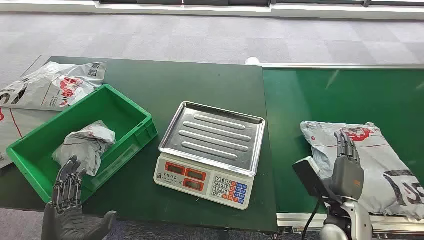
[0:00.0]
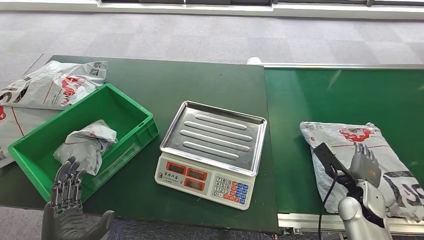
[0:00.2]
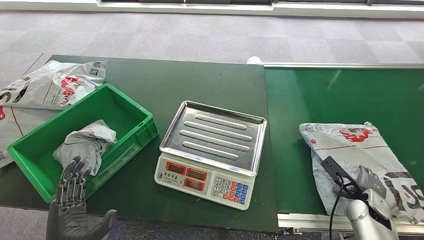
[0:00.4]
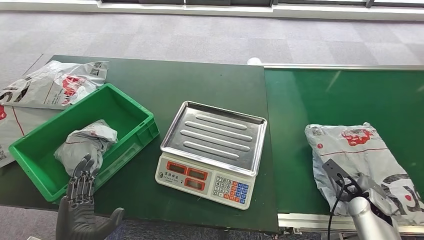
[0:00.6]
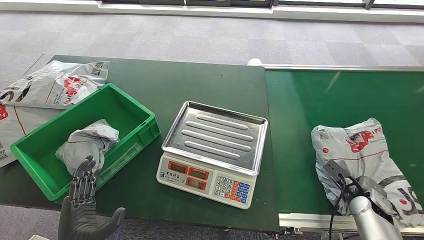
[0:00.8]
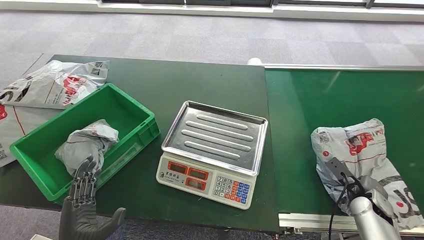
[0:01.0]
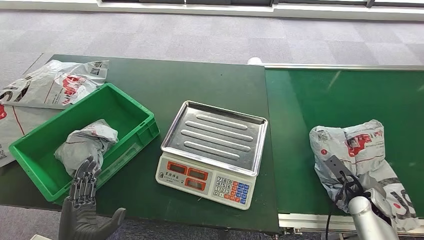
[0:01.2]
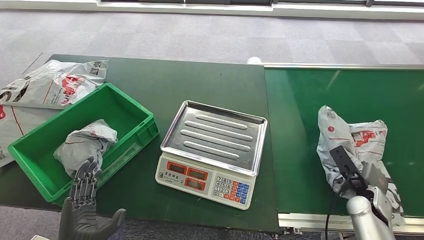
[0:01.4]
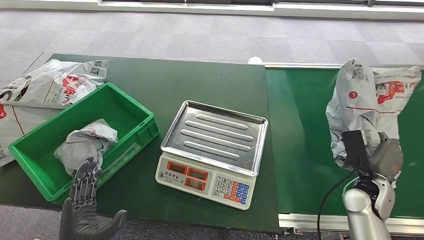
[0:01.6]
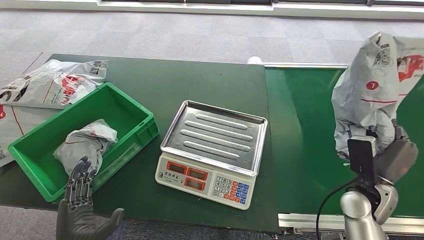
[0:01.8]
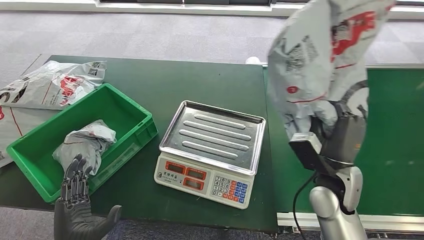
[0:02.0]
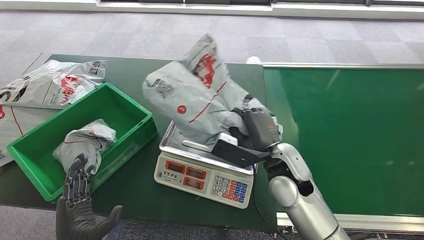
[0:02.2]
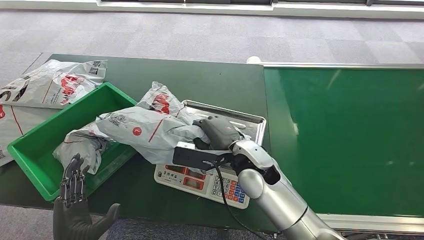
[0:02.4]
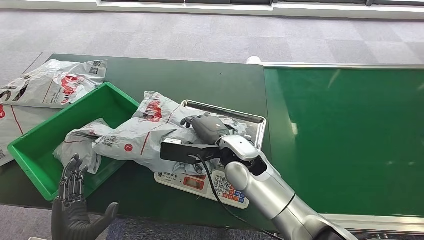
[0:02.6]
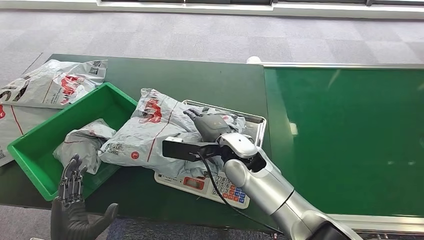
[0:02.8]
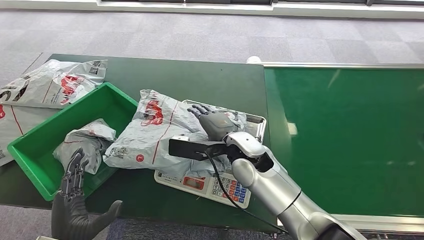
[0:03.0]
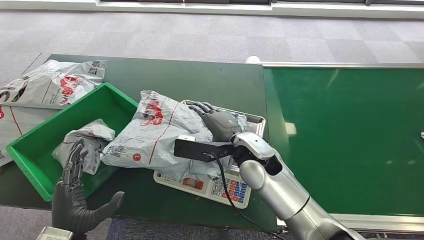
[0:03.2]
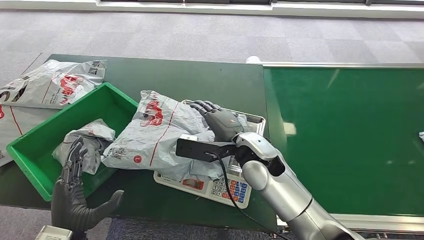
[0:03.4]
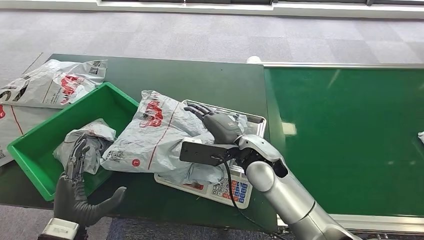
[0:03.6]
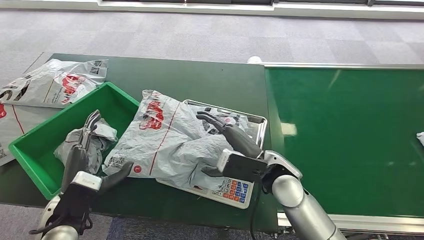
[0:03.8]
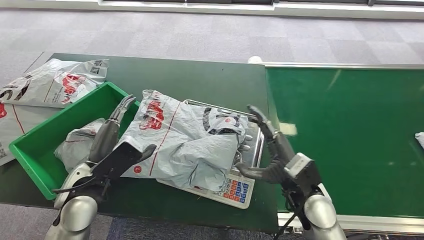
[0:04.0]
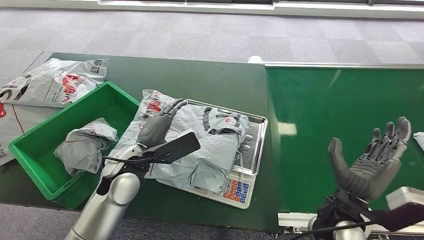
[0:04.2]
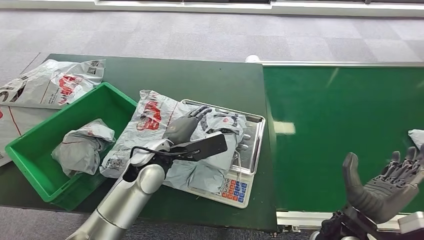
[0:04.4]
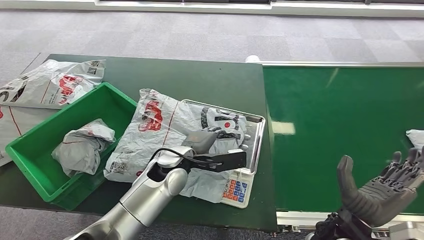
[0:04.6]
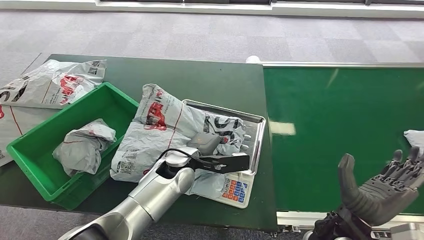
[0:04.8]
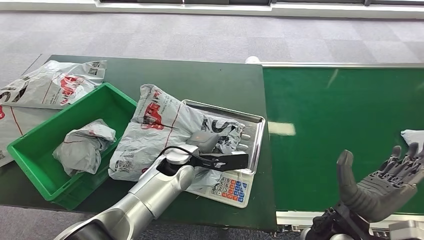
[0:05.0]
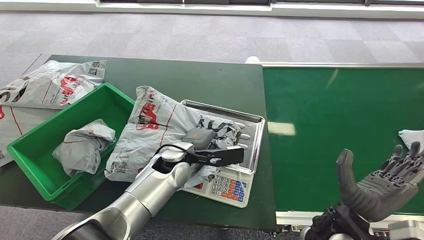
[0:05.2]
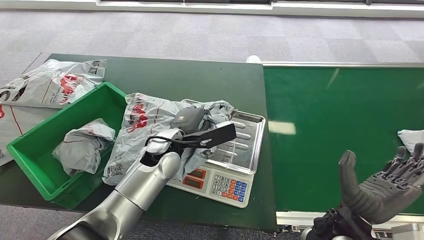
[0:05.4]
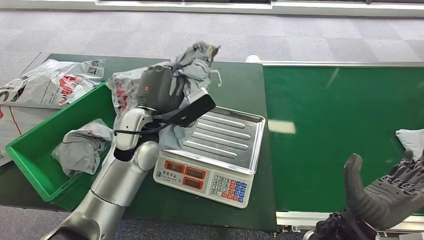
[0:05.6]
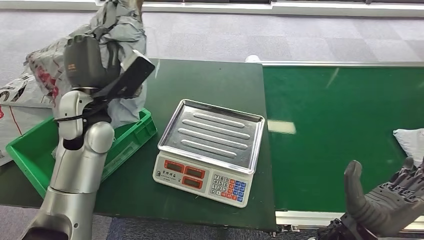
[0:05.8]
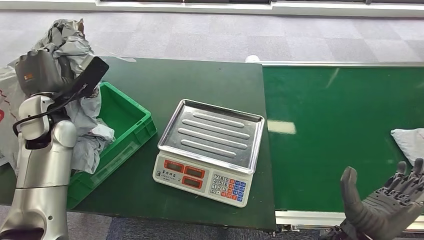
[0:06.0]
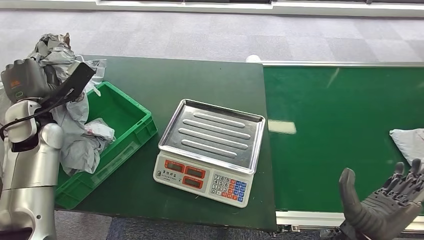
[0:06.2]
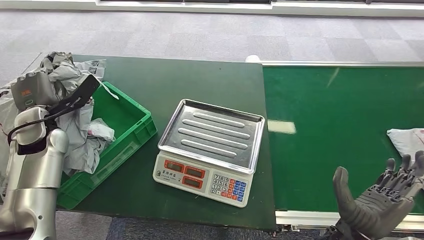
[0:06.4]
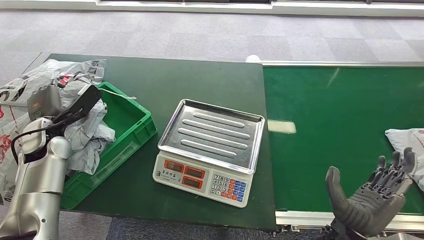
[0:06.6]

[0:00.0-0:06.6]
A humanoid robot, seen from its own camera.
Step, 0:00.0 to 0:01.6: Pick up the package from the conveyor belt.
Step, 0:01.8 to 0:04.2: Place the package onto the inbound machine.
Step, 0:04.6 to 0:06.2: Pick up the package from the inbound machine.
Step, 0:06.4 to 0:06.6: Place the package into the parcel locker.

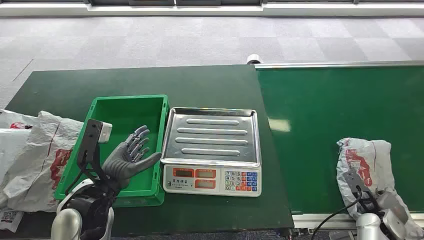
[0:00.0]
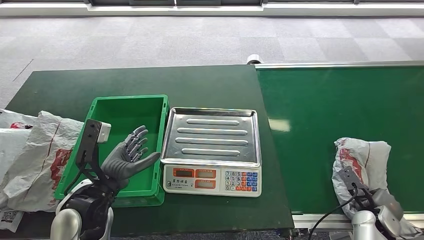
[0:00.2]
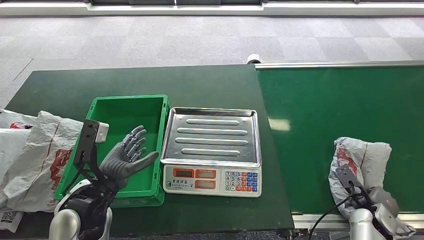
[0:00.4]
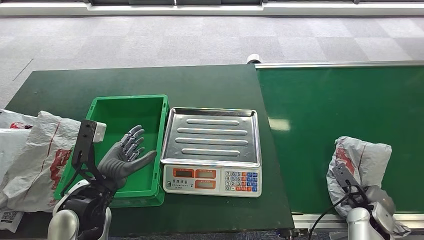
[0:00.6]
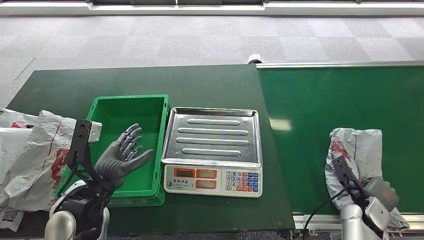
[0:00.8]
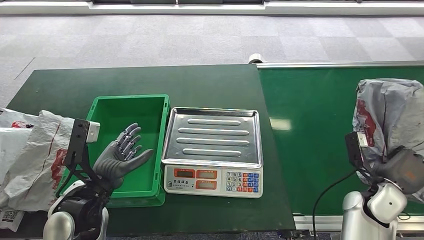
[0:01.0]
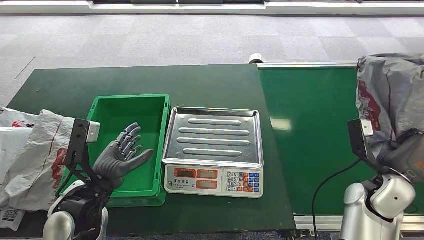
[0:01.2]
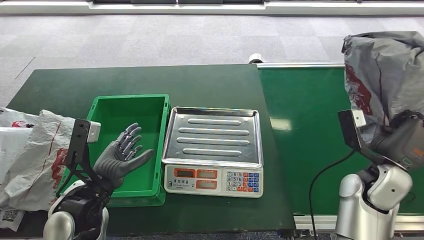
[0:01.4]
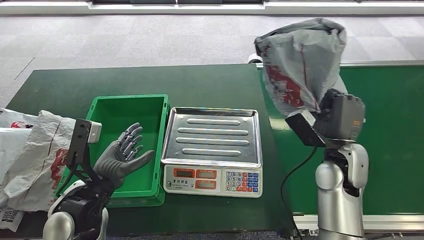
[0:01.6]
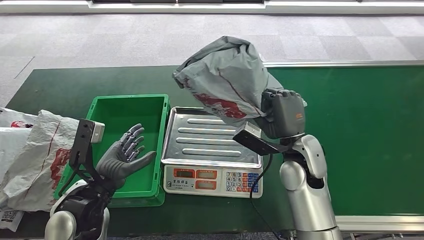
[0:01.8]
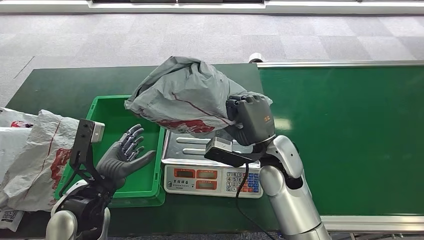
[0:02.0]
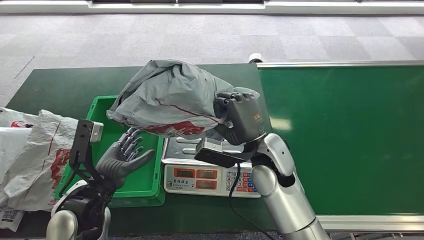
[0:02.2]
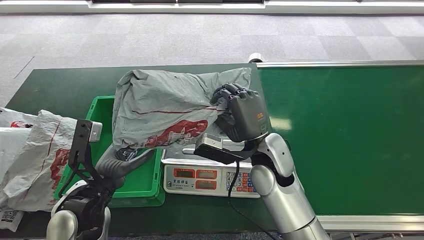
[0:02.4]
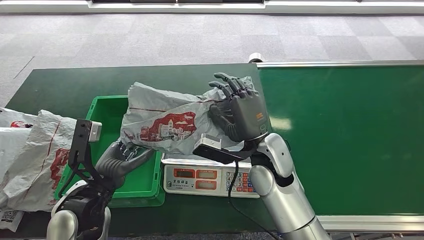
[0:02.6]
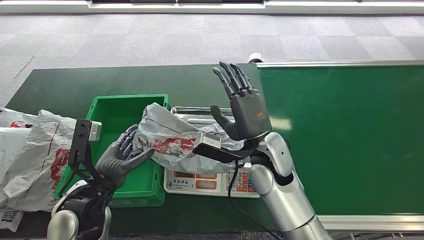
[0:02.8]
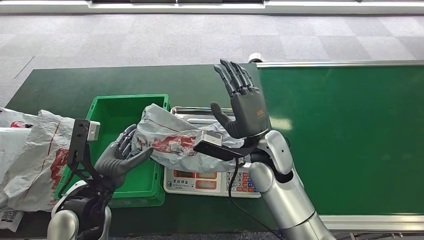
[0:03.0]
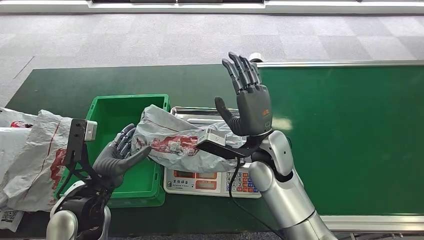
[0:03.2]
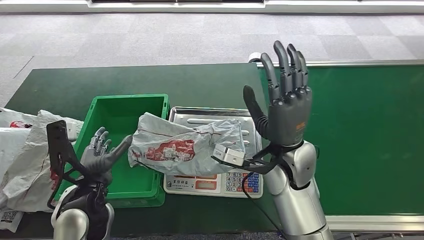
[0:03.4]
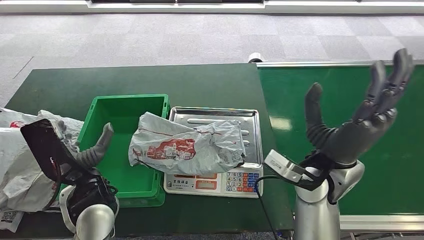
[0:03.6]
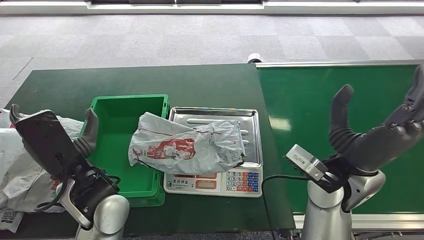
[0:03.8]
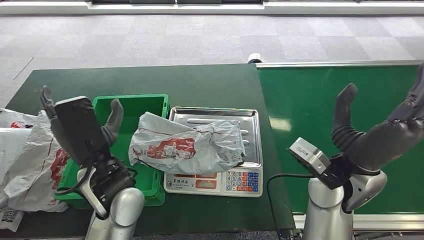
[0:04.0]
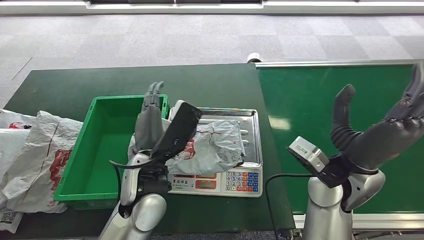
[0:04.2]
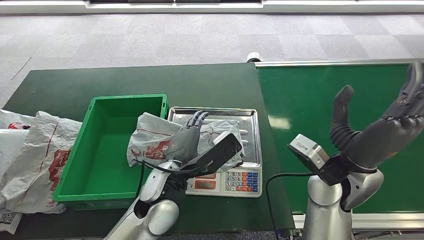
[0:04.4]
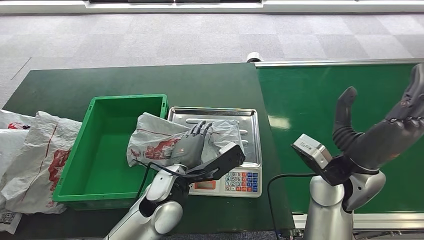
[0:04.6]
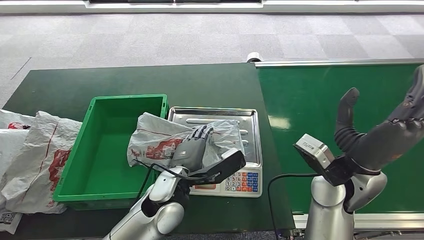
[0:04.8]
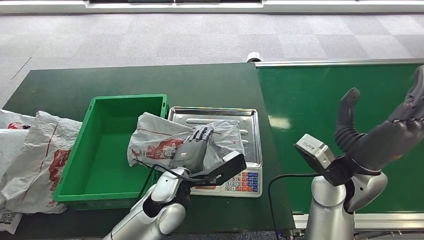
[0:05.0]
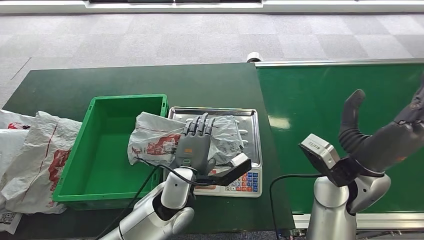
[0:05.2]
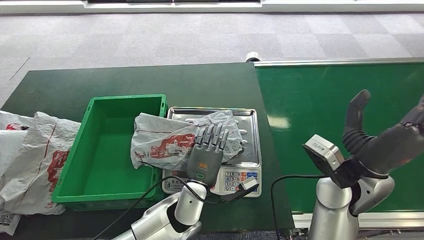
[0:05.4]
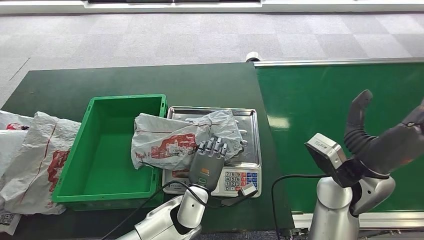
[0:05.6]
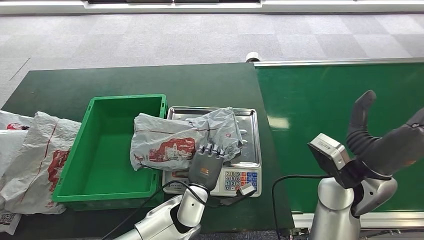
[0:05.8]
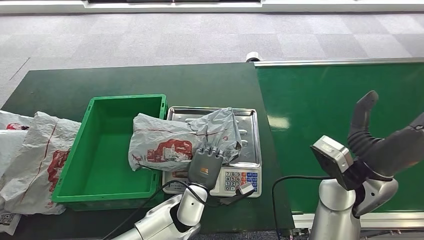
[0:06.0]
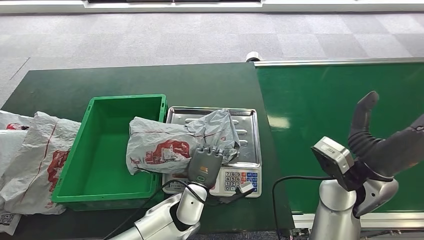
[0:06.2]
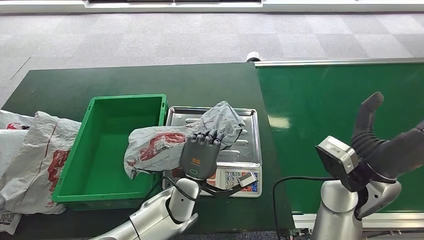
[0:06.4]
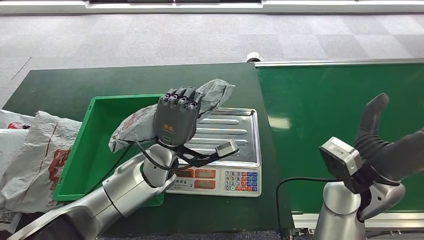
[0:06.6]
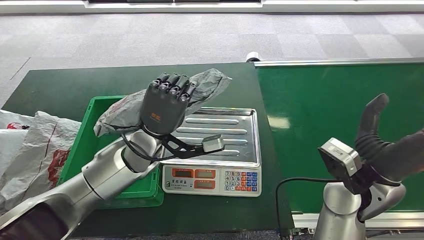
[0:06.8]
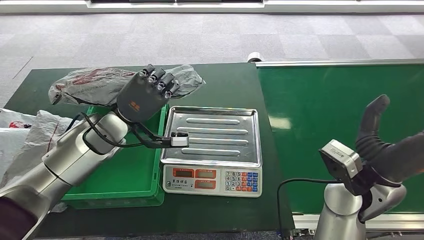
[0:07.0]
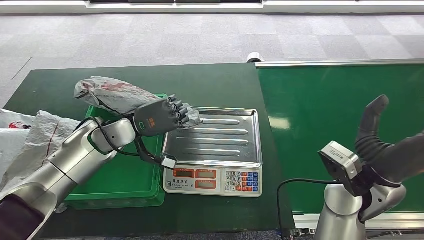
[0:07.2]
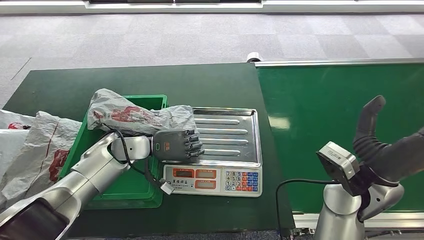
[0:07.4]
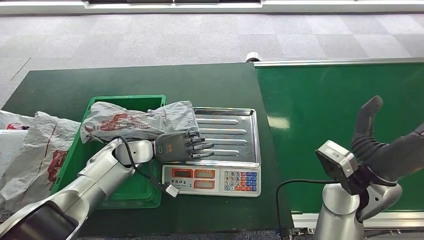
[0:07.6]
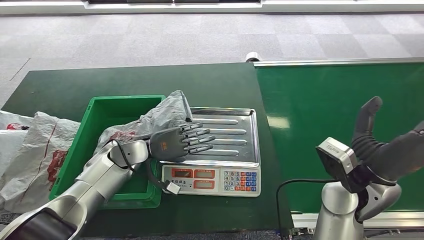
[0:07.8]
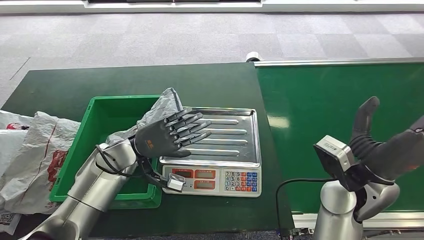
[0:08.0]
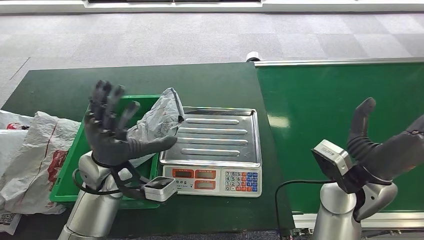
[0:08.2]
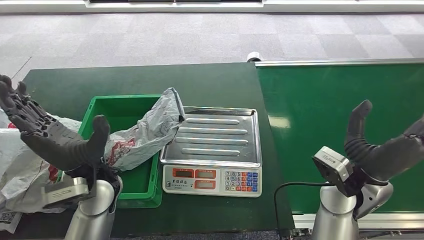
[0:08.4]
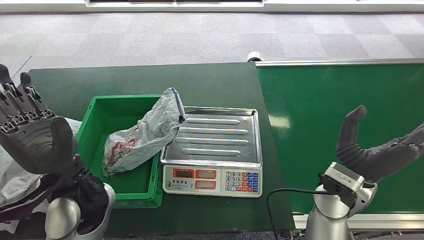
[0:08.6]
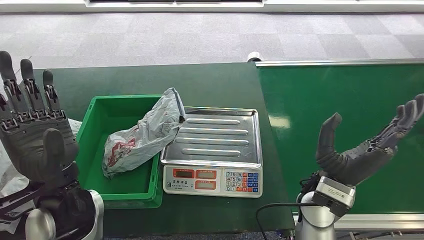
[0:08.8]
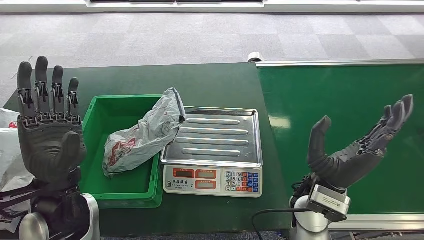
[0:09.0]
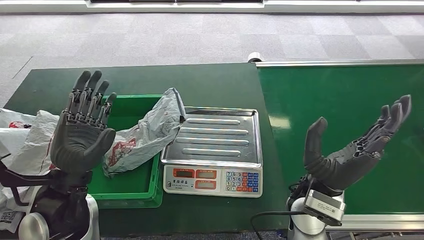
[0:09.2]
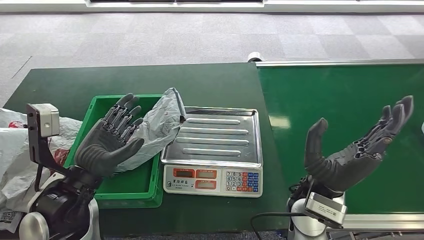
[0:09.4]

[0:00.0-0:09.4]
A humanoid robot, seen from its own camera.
Step, 0:00.0 to 0:01.6: Pick up the package from the conveyor belt.
Step, 0:01.8 to 0:03.2: Place the package onto the inbound machine.
Step, 0:03.6 to 0:07.0: Pick up the package from the inbound machine.
Step, 0:07.2 to 0:09.4: Place the package into the parcel locker.
0:04.8 to 0:06.2: The left hand heads downward, covering some 10 cm.

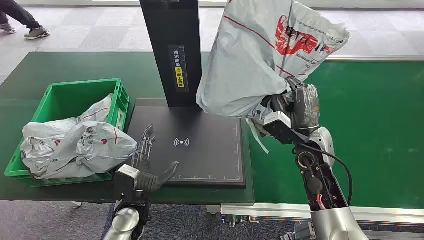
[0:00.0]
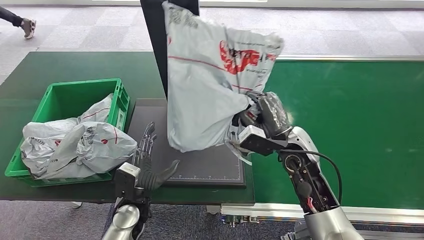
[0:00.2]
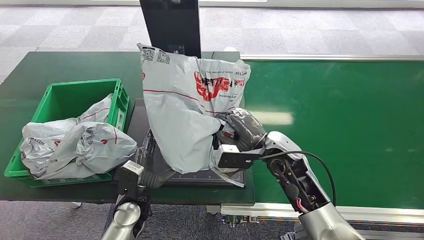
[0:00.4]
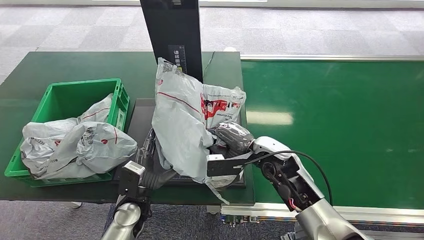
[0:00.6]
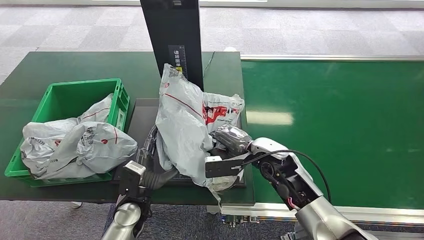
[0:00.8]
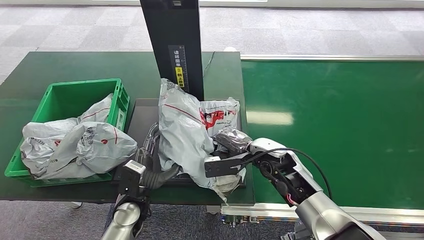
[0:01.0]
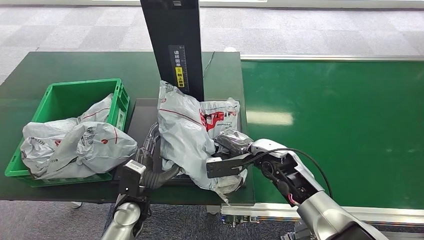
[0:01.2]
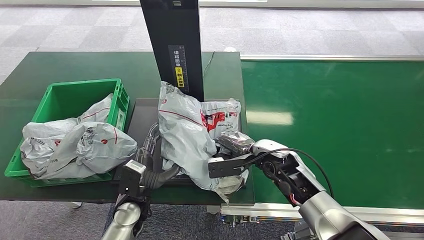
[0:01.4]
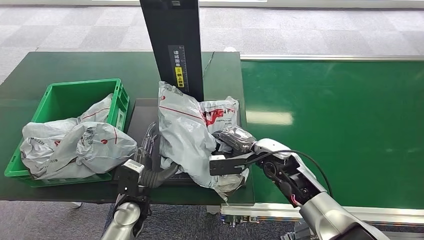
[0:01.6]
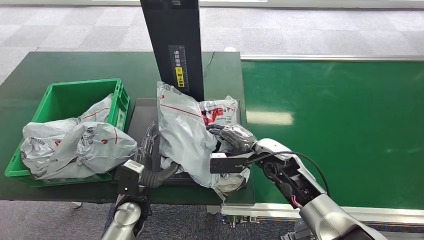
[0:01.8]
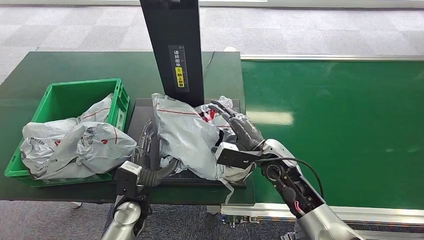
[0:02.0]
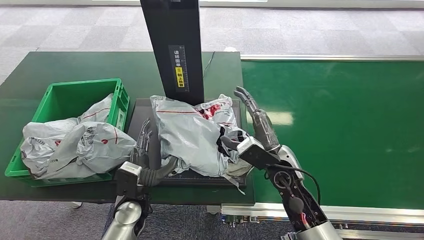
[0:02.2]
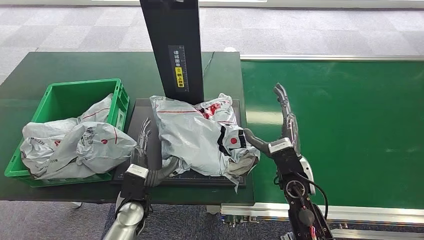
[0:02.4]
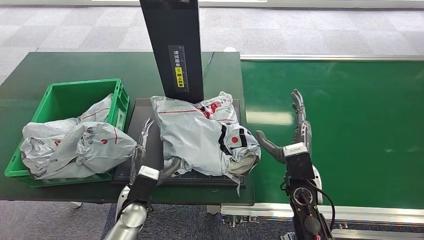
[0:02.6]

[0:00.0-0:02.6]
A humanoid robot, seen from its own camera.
Step, 0:00.0 to 0:00.2: Pick up the package from the conveyor belt.
0:01.2 to 0:02.6: The right hand is displaced backward by approximately 10 cm.
